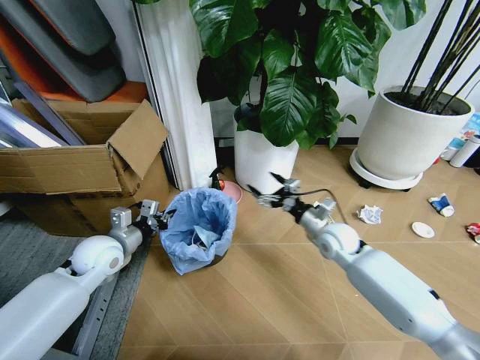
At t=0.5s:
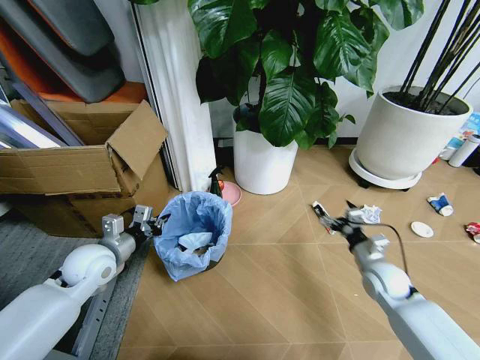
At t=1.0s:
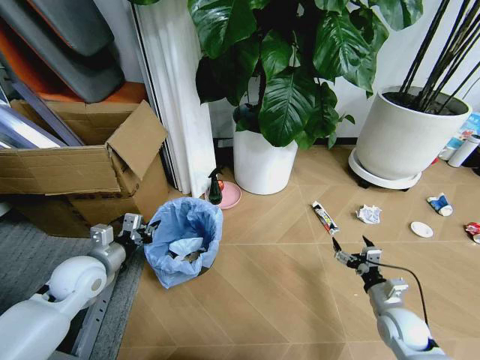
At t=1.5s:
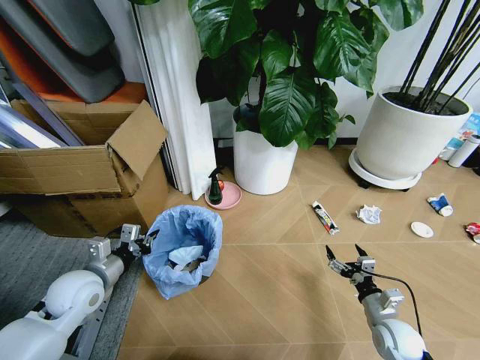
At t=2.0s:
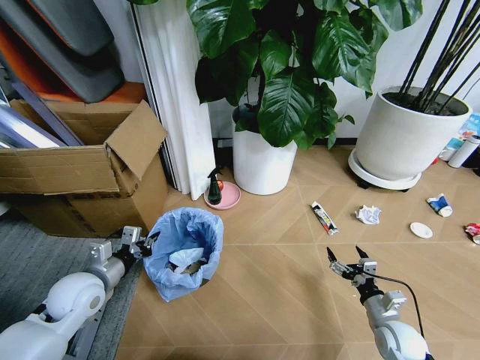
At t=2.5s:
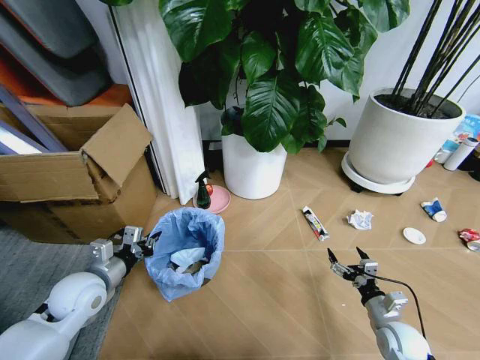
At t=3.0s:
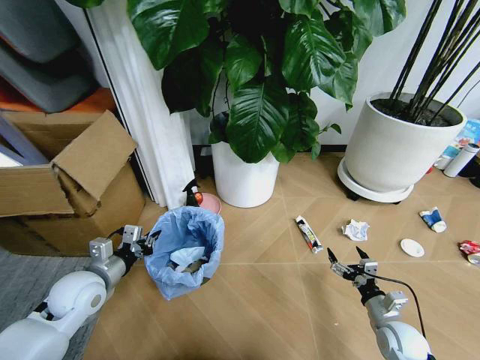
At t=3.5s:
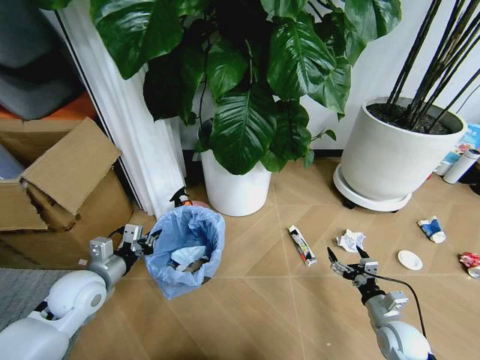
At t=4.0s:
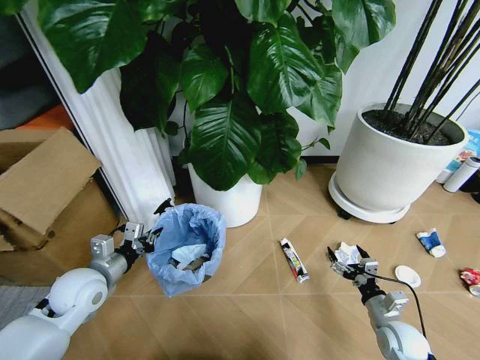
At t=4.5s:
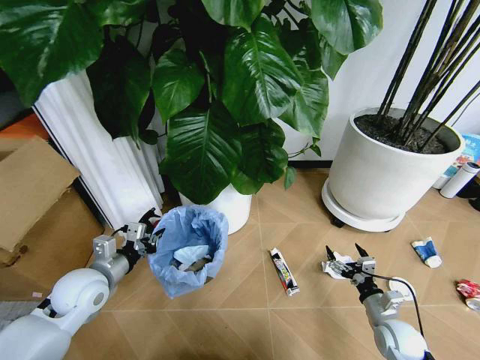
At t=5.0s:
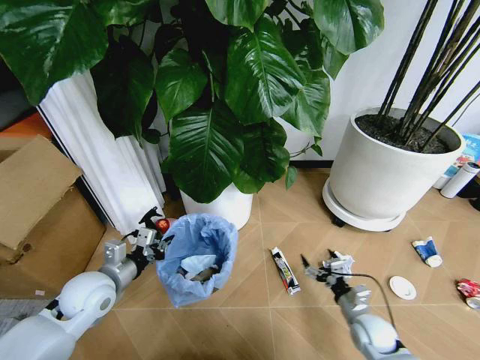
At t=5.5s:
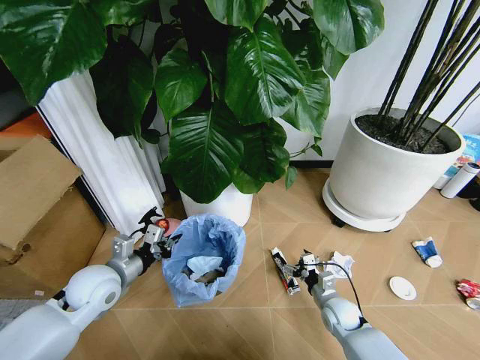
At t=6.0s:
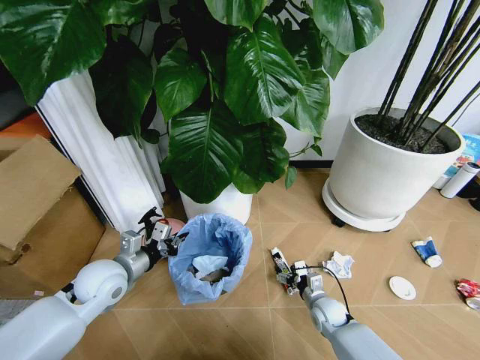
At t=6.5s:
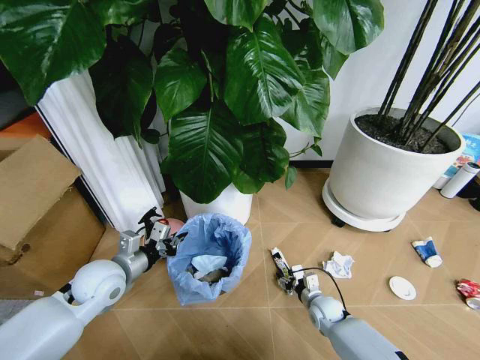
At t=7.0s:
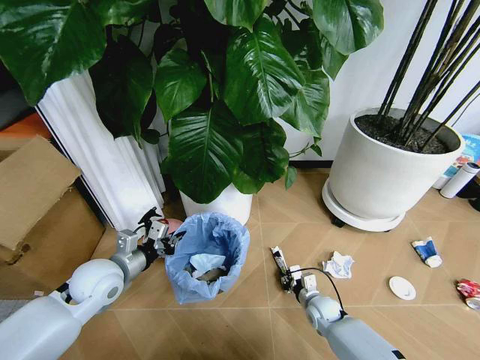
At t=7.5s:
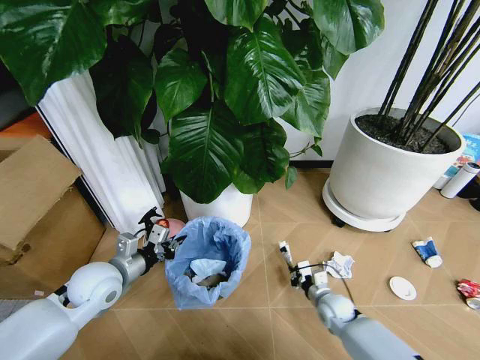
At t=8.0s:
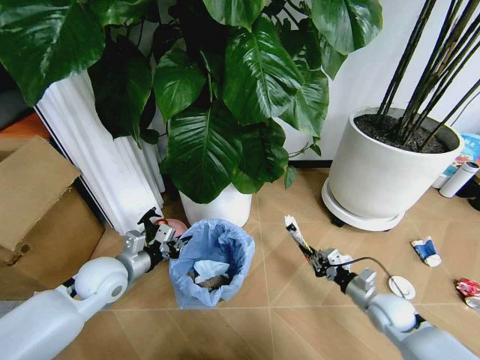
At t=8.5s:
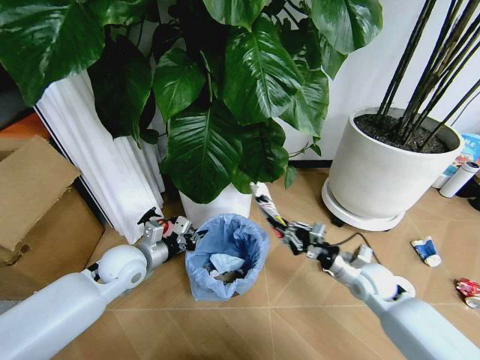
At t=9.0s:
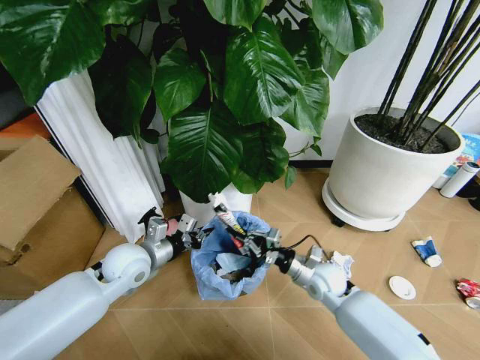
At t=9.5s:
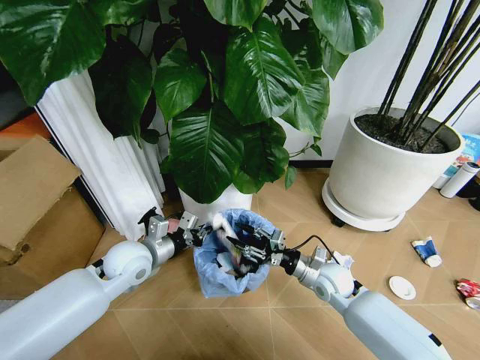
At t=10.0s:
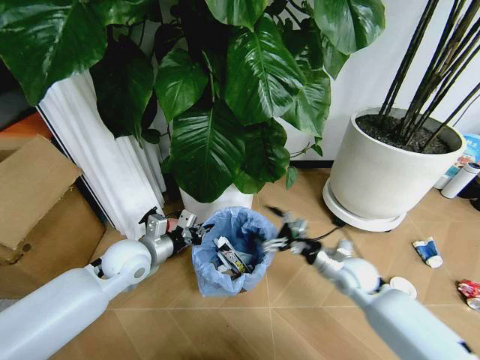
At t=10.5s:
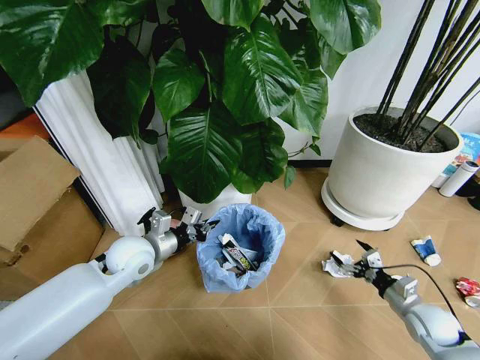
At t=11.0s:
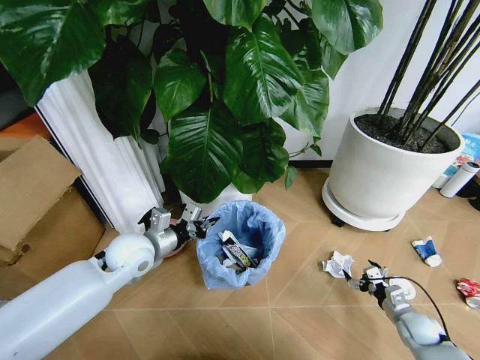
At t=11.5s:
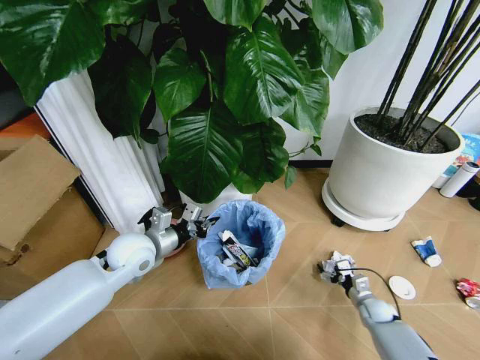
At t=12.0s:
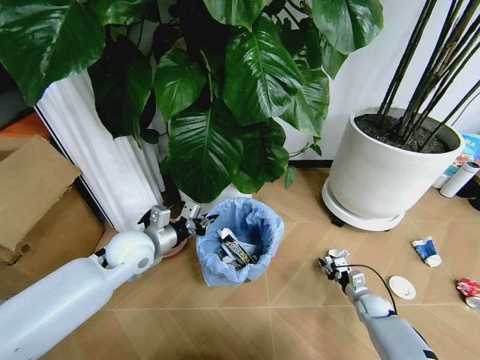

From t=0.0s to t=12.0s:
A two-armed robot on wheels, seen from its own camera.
Task of the whole recording: Pick up the trash bin and place the garbage on the floor into it.
From t=0.0s to t=2.0s: The right gripper is displaced backward, downward and to the right by roughly 25 cm. The left gripper is displaced backward by approximately 5 cm.
From t=4.0s to t=6.0s: The right gripper shifts roughly 15 cm to the left, forward and downward.
From t=6.0s to t=8.0s: The right gripper goes approximately 15 cm to the right and upward, and closes.
From t=8.0s to t=10.0s: The left gripper shifts by approximately 5 cm. Meanwhile the right gripper is displaced to the left and forward by about 15 cm, and opens up.
From t=10.0s to t=12.0s: The right gripper shifts approximately 25 cm downward and to the right, and closes its fingers.

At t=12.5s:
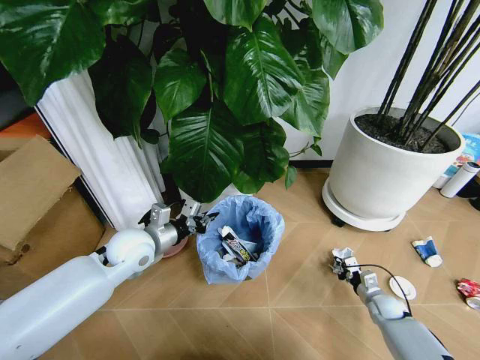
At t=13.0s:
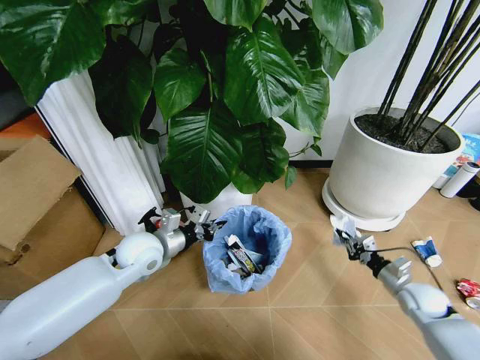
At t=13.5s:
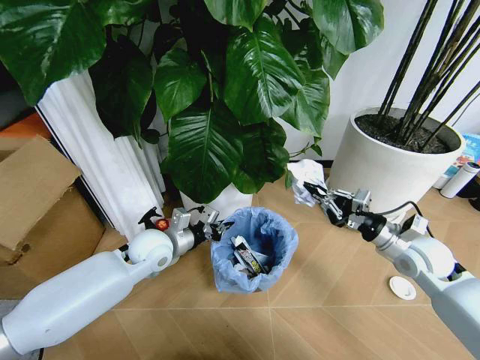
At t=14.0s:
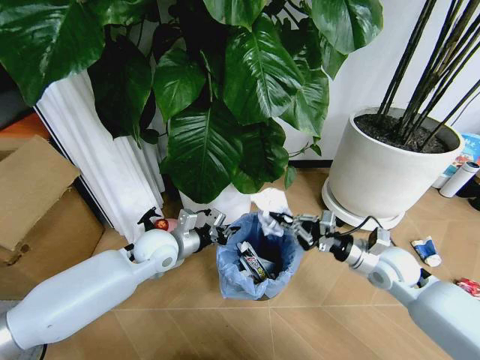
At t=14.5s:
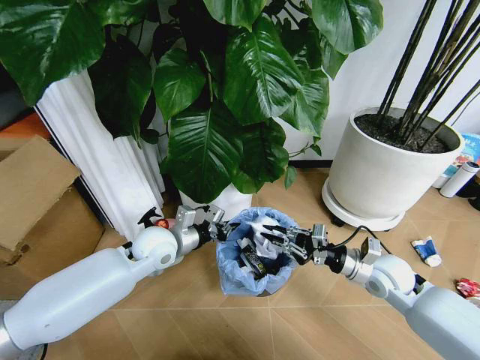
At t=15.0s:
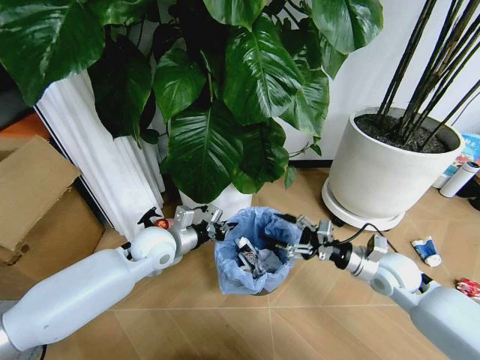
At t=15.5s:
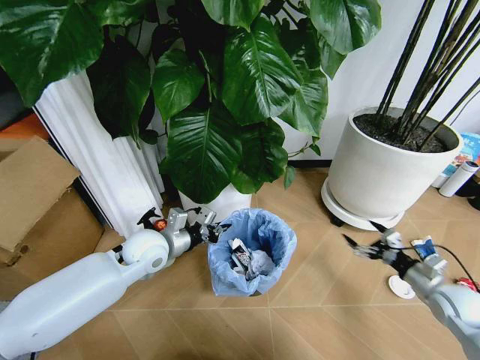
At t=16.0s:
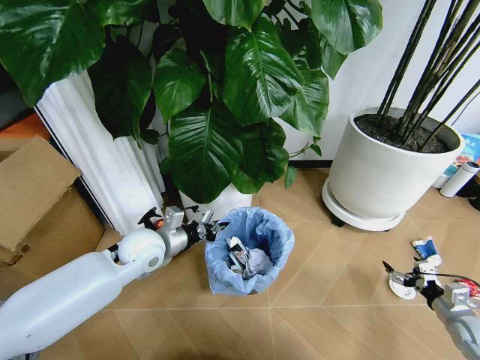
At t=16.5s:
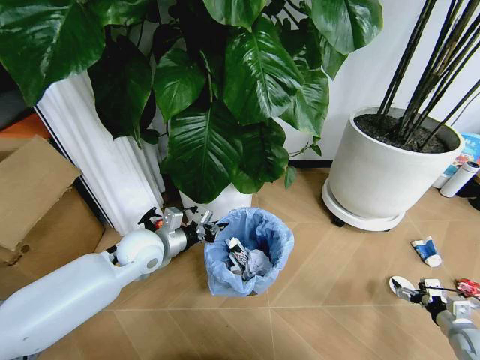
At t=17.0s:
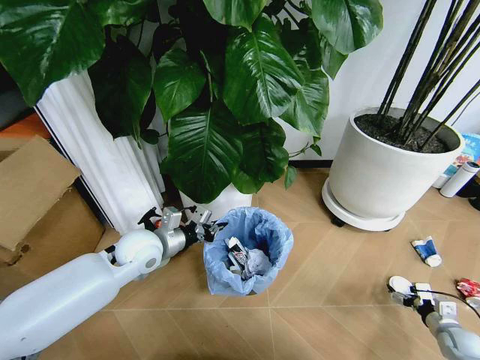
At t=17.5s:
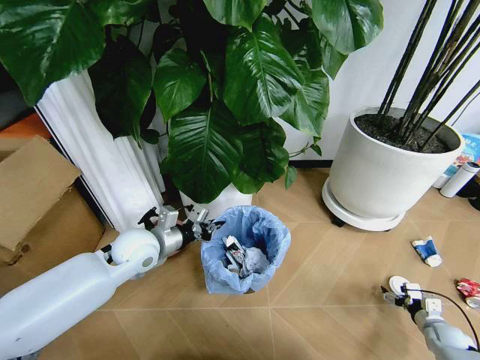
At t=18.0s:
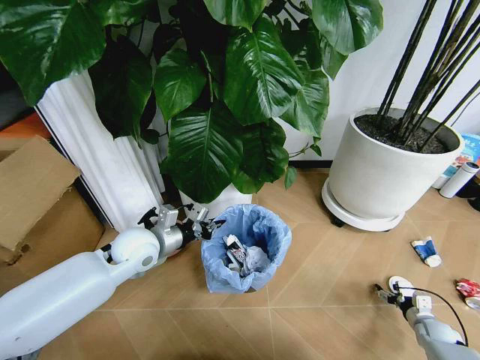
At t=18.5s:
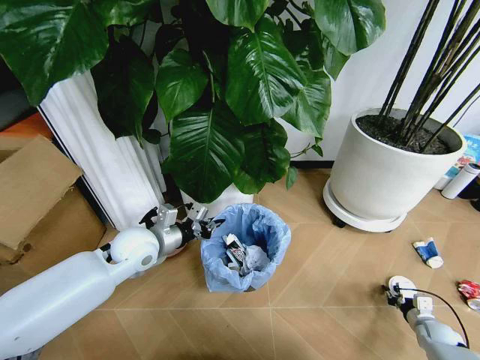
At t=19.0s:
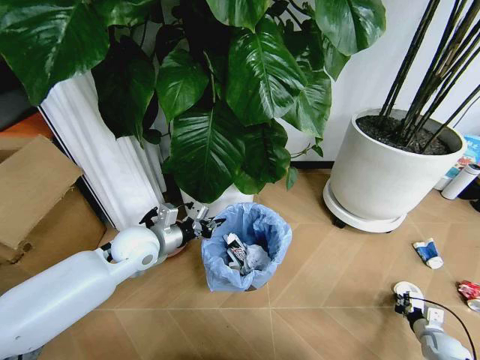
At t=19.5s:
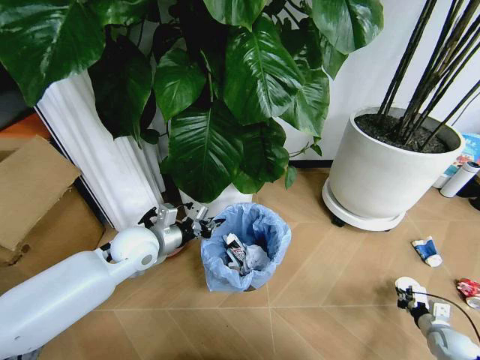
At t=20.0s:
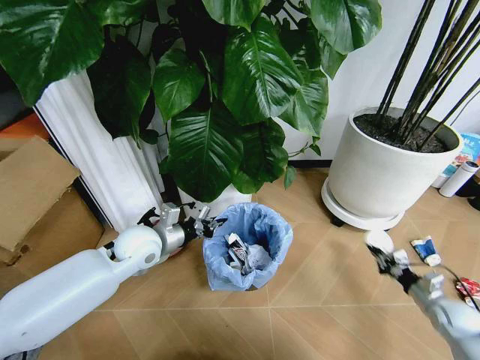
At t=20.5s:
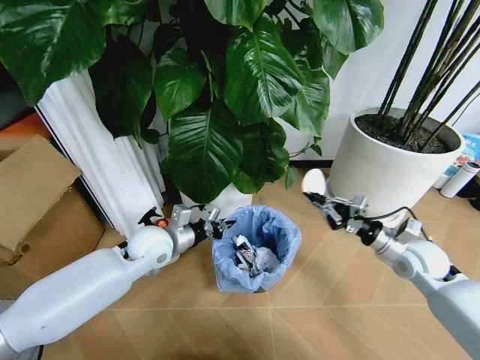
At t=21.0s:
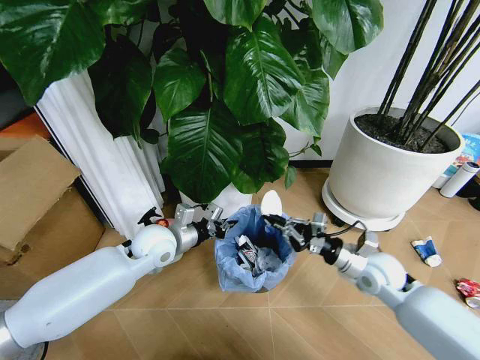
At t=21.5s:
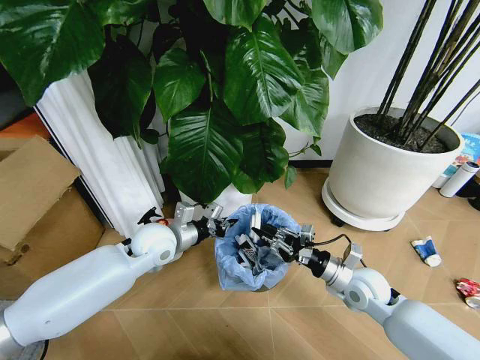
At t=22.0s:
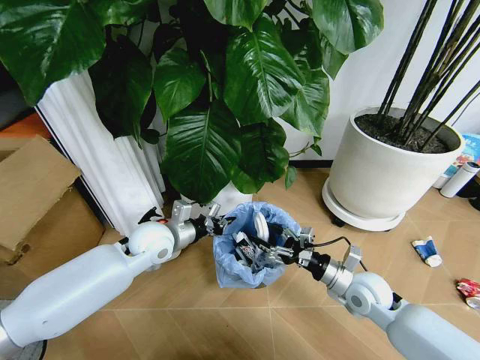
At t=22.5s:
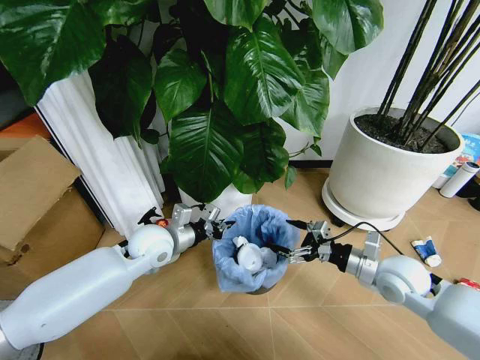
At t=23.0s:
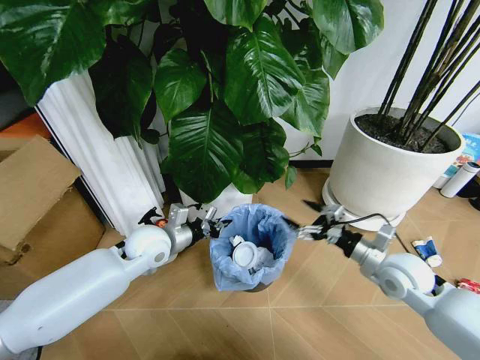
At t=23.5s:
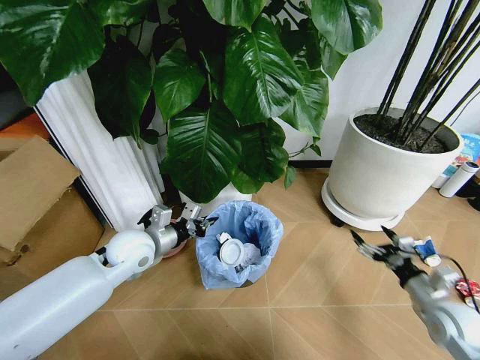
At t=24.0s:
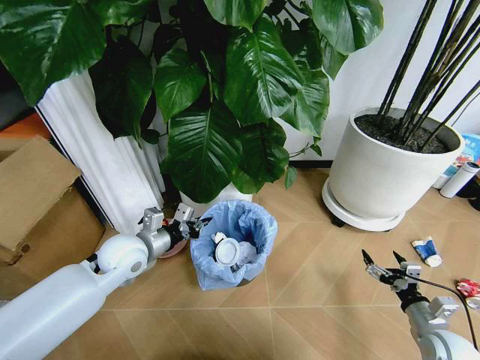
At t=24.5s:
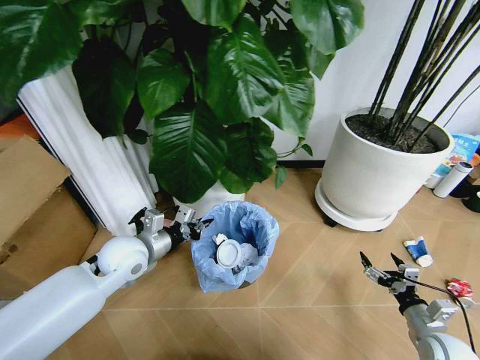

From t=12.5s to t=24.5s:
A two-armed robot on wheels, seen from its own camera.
Task of the whole recording: Pick up the trash bin and place the garbage on the floor into it.
From t=12.5s to t=14.5s: The right gripper moves upward and to the left, some 25 cm.
From t=14.5s to t=16.5s: The right gripper shifts approximately 30 cm to the right, downward and backward, and opens.
From t=16.5s to t=18.5s: The right gripper moves downward, approximately 10 cm, and closes.
From t=18.5s to t=20.5s: The right gripper heads upward and to the left, covering about 30 cm.
From t=20.5s to t=22.5s: The right gripper moves to the left, roughly 5 cm, and opens.
From t=22.5s to t=24.5s: The left gripper shifts by some 5 cm, while the right gripper goes some 20 cm downward, backward and to the right.

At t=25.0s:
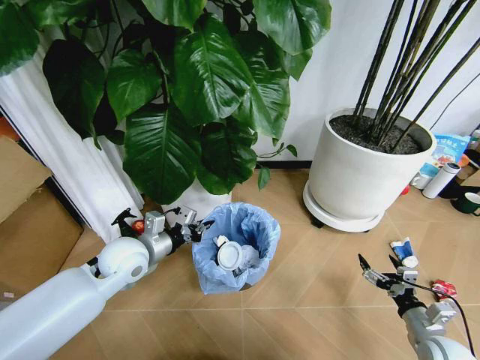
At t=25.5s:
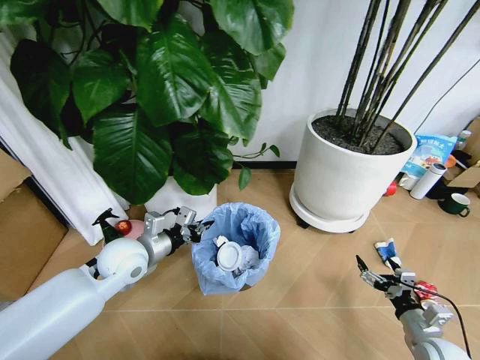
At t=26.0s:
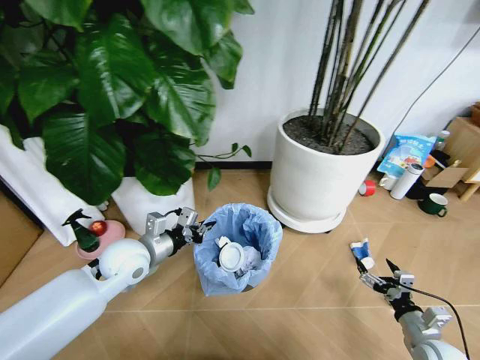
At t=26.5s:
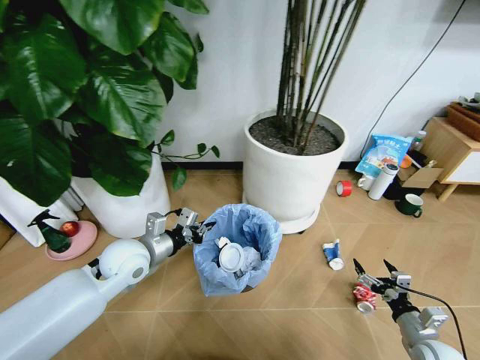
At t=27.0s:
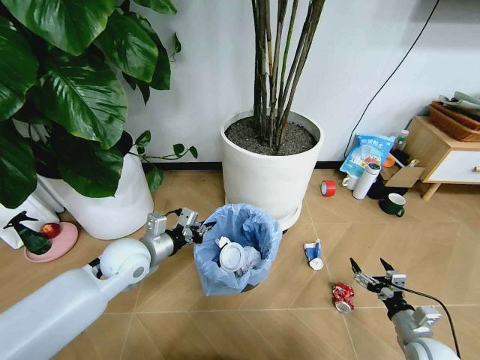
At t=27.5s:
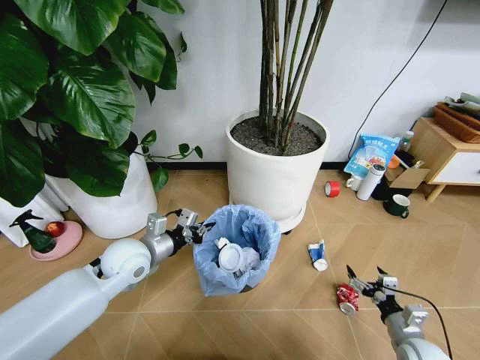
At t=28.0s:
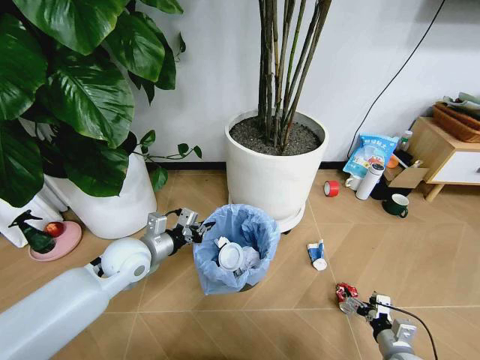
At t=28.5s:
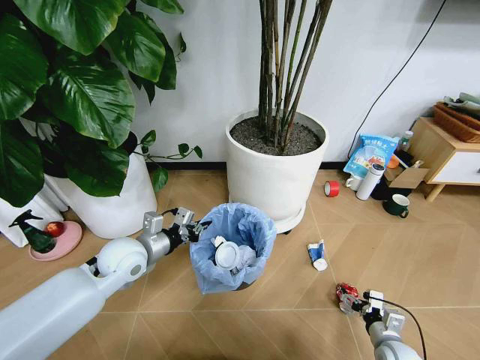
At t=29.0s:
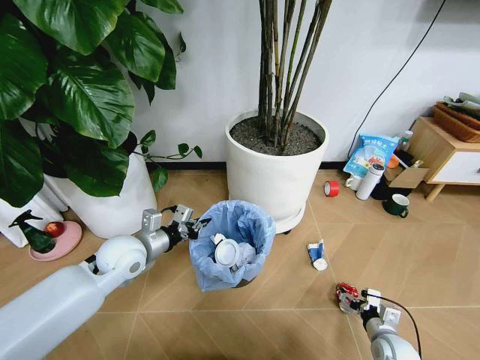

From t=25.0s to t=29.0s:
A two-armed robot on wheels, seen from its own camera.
Task of the whole recording: Pick up the trash bin and place the garbage on the floor into it.
From t=27.0s to t=29.0s: The right gripper heads downward, covering approximately 5 cm.
